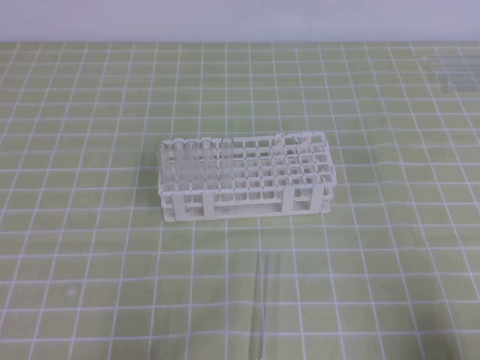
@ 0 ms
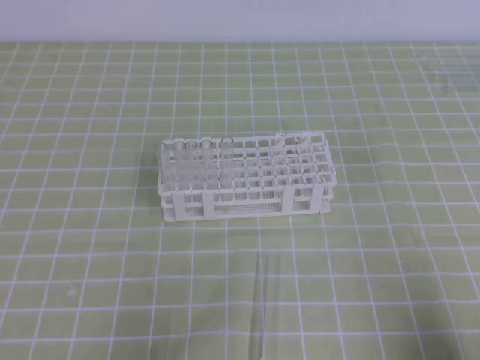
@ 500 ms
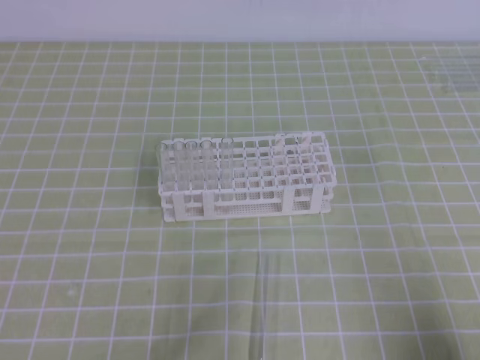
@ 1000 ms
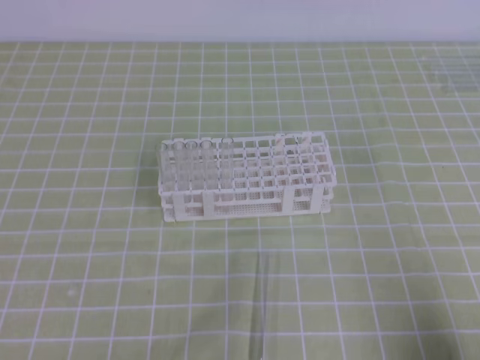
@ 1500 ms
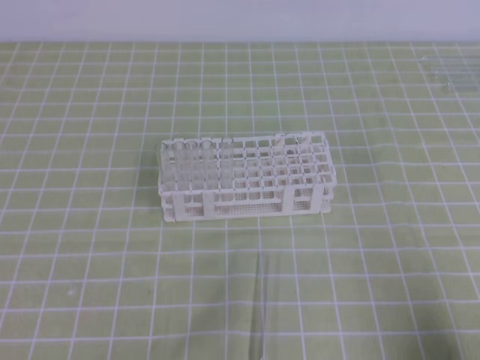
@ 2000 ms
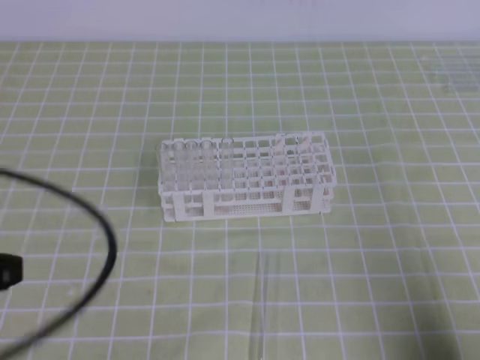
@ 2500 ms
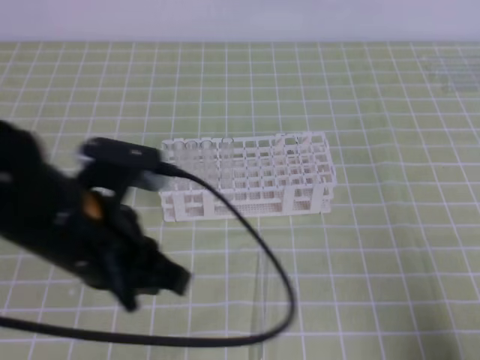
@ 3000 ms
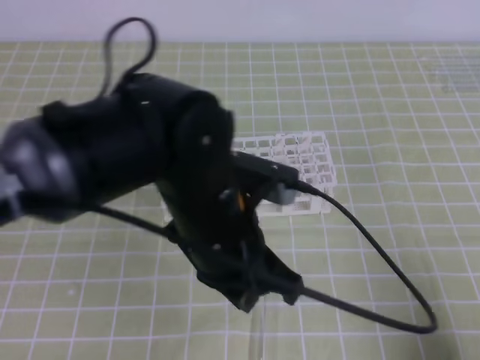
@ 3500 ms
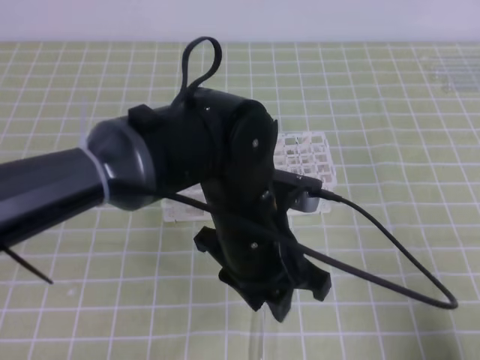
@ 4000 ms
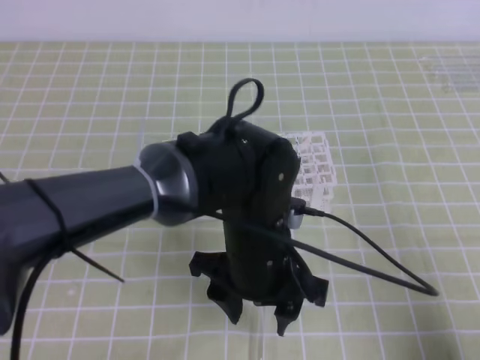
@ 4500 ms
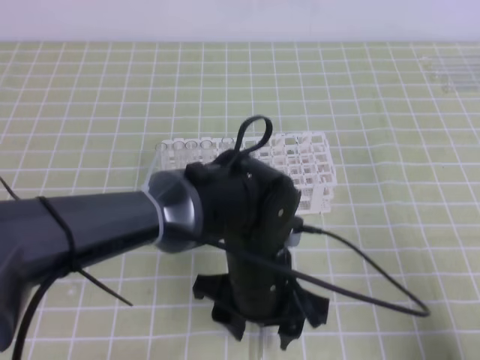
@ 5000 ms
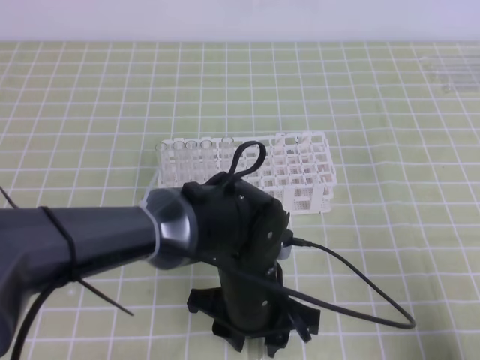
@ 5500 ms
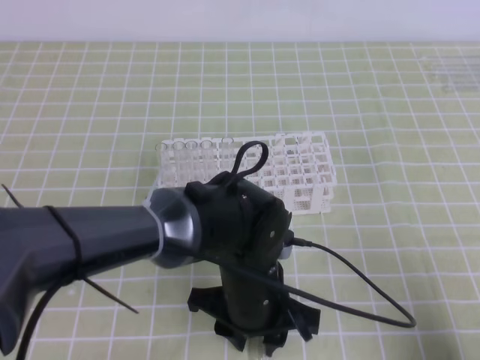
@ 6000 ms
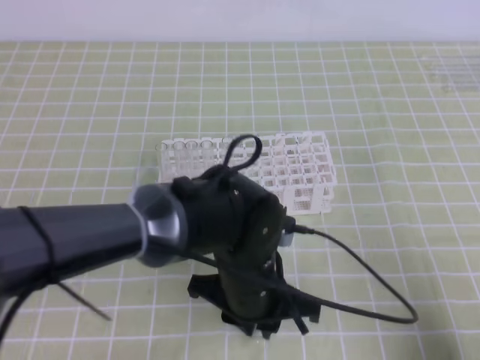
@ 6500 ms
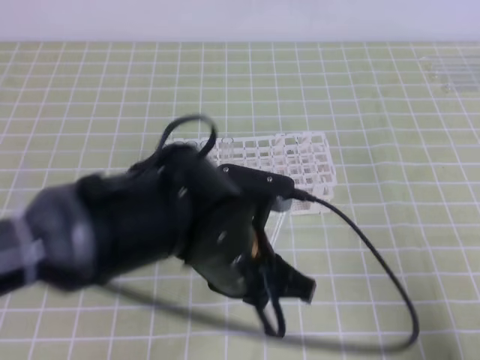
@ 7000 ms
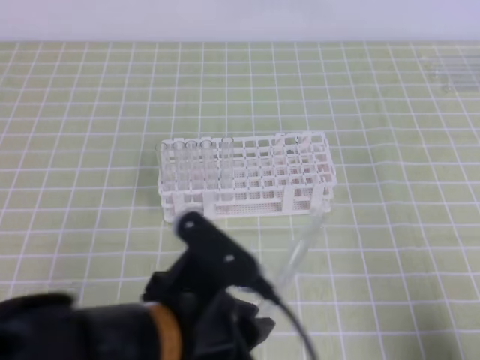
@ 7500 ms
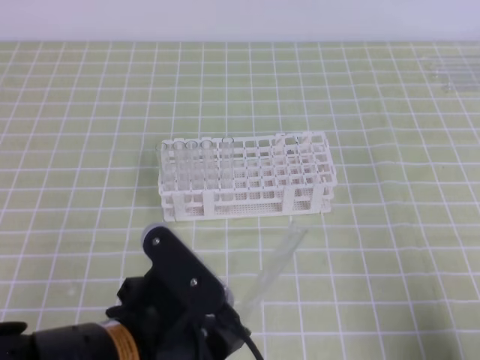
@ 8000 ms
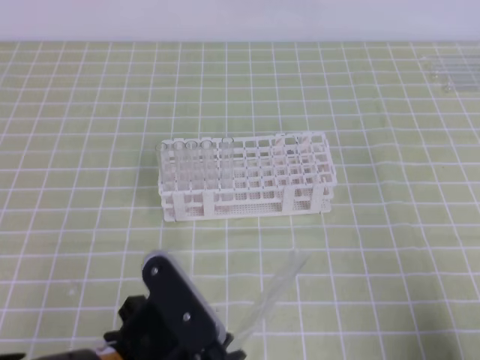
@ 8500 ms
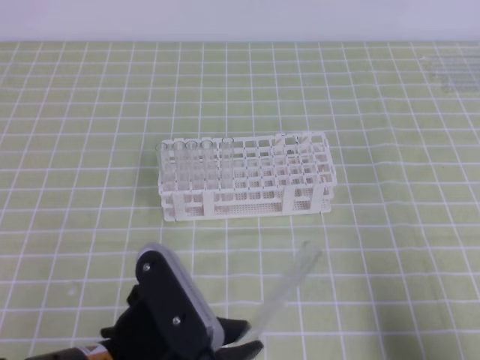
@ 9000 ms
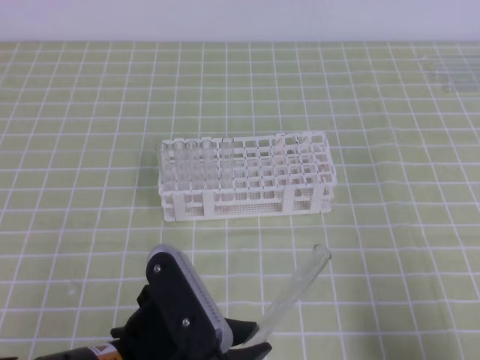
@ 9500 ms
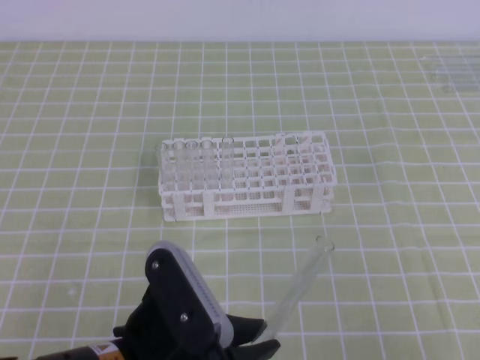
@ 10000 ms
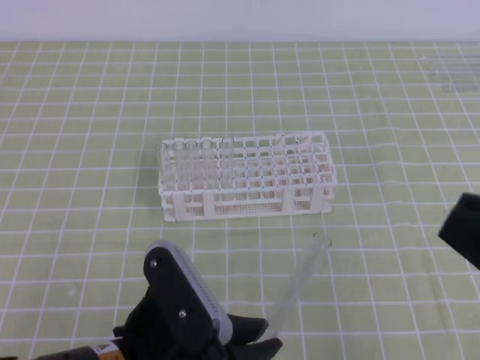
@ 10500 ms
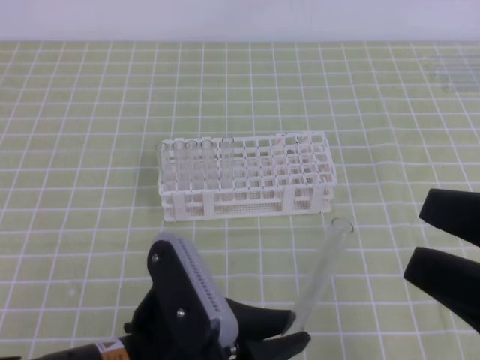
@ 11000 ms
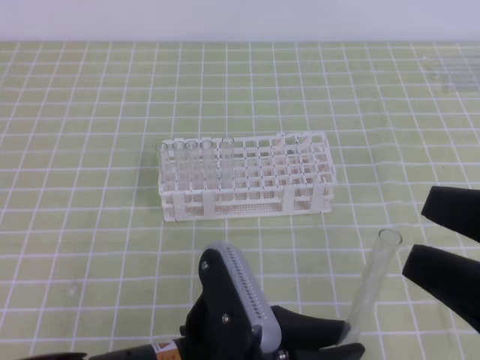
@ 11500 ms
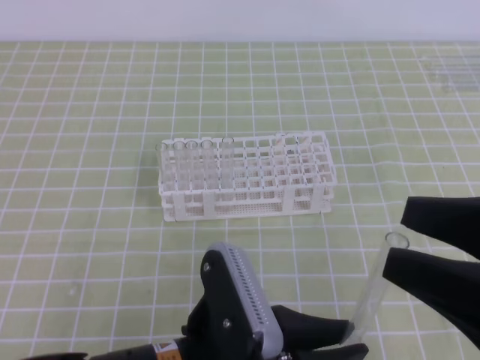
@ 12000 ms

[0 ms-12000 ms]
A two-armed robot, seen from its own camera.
2000 ms to 4000 ms: The left gripper travels to the right and forward by approximately 35 cm, and opens its fingers.
4000 ms to 6000 ms: The left gripper travels downward by roughly 10 cm, and opens, then closes once more.
6000 ms to 8000 ms: The left gripper travels to the left, backward and upward by about 15 cm.
8000 ms to 10000 ms: The right gripper travels upward by some 5 cm.
10000 ms to 12000 ms: The right gripper heads upward and forward, covering approximately 10 cm, and opens its fingers.

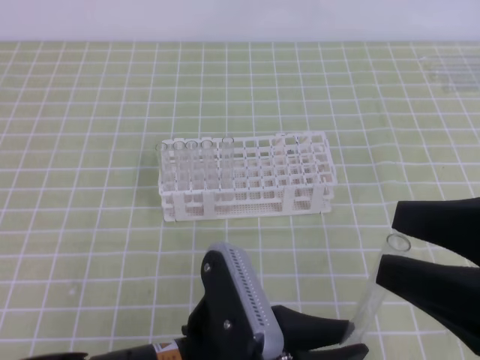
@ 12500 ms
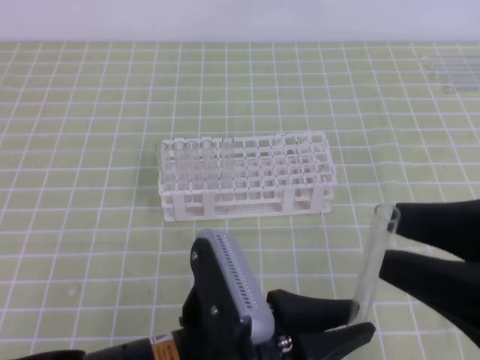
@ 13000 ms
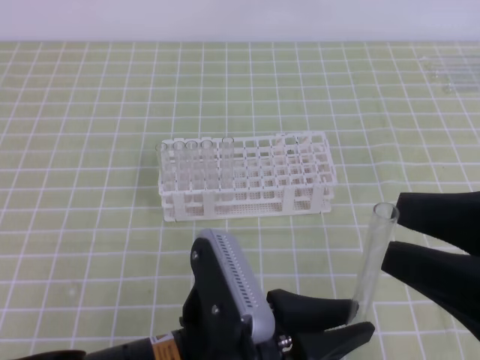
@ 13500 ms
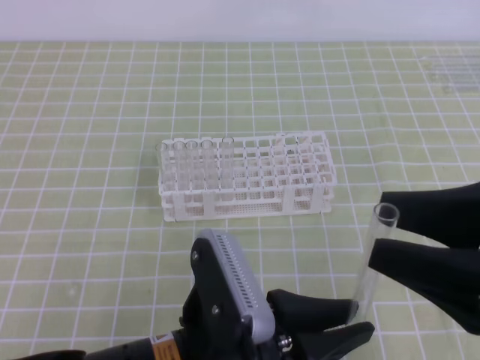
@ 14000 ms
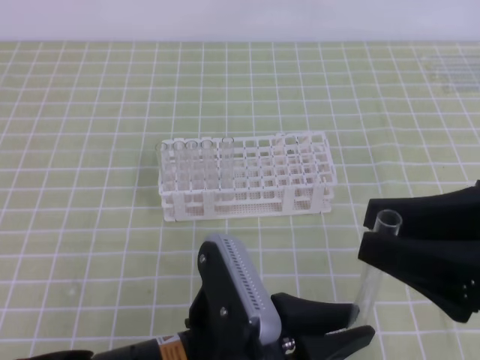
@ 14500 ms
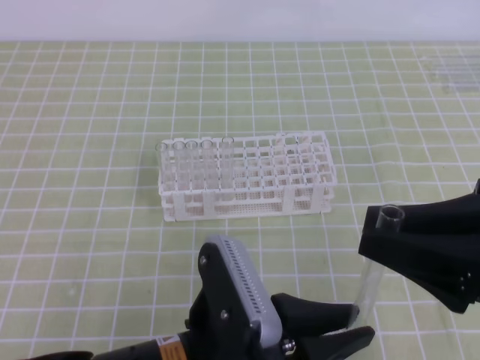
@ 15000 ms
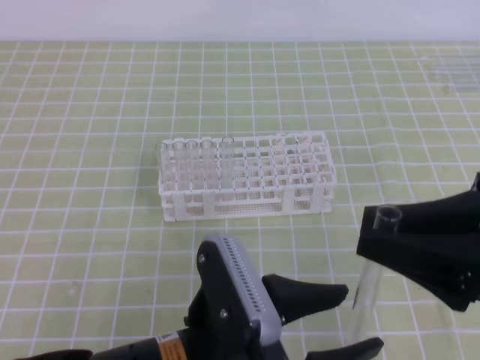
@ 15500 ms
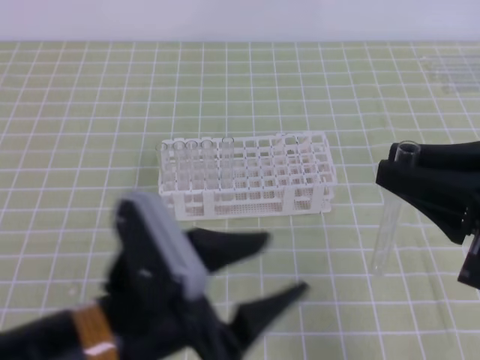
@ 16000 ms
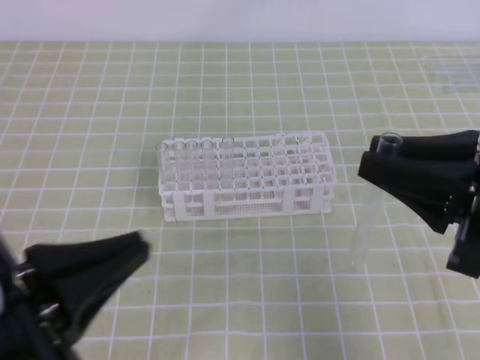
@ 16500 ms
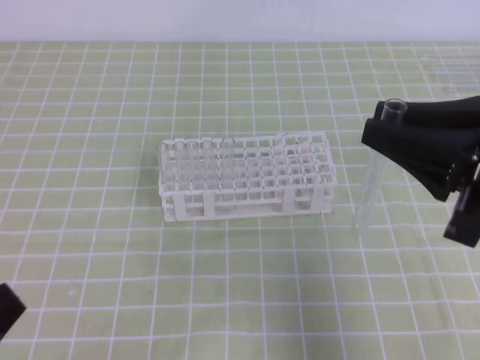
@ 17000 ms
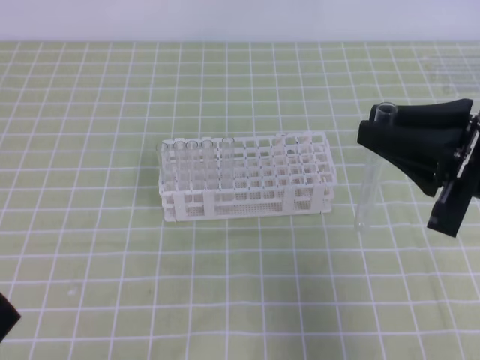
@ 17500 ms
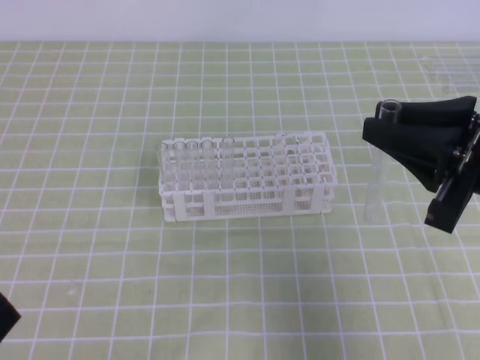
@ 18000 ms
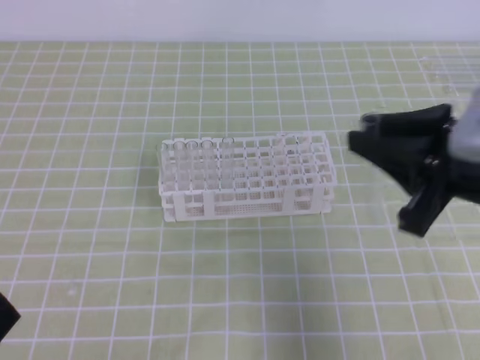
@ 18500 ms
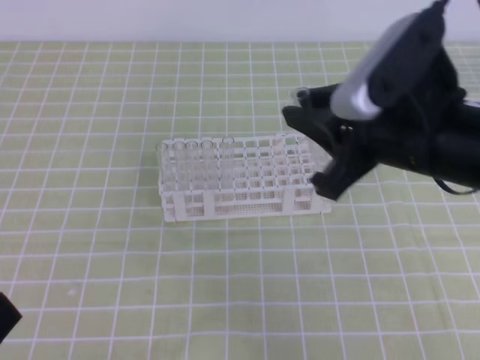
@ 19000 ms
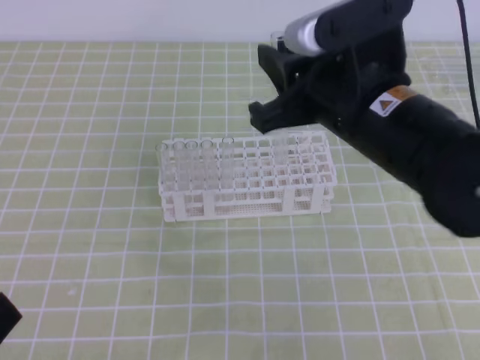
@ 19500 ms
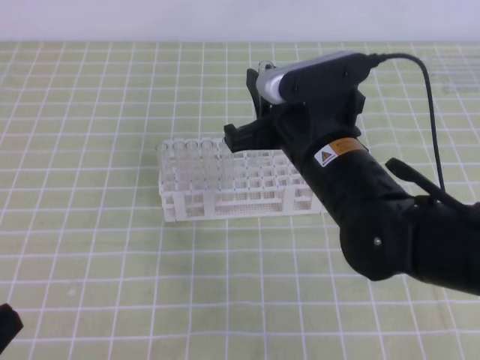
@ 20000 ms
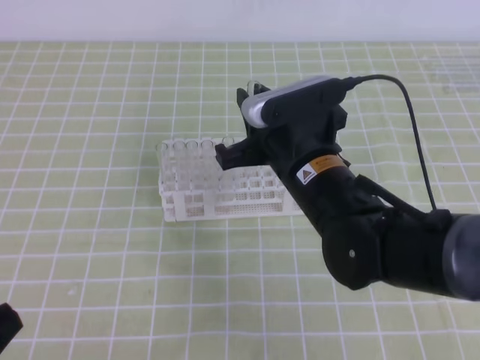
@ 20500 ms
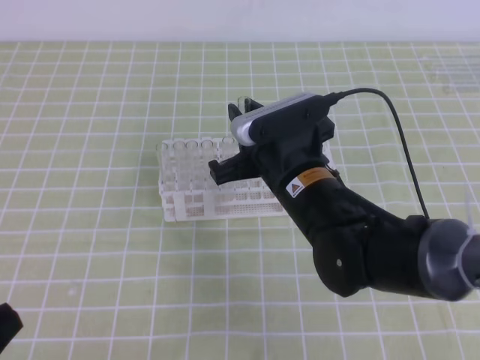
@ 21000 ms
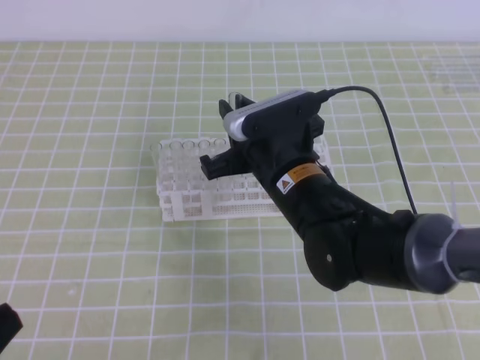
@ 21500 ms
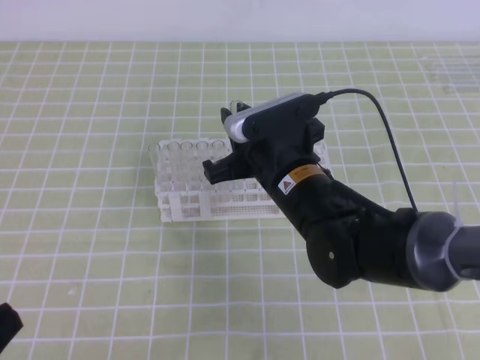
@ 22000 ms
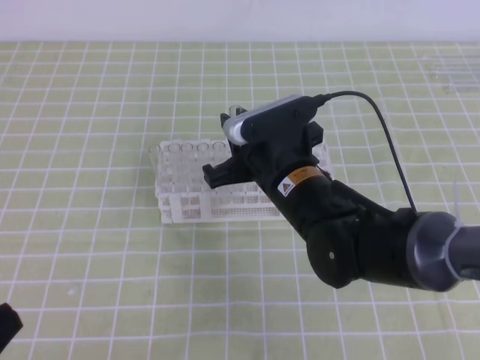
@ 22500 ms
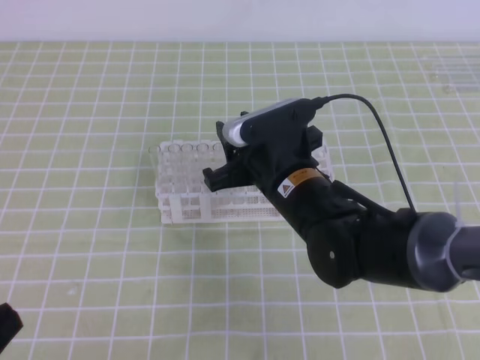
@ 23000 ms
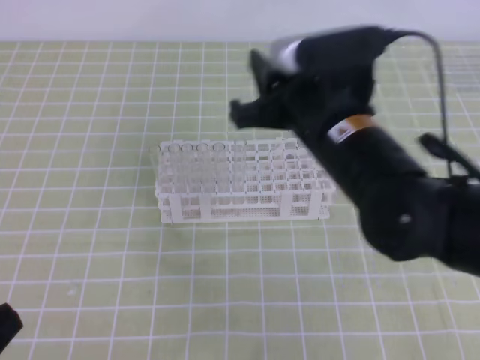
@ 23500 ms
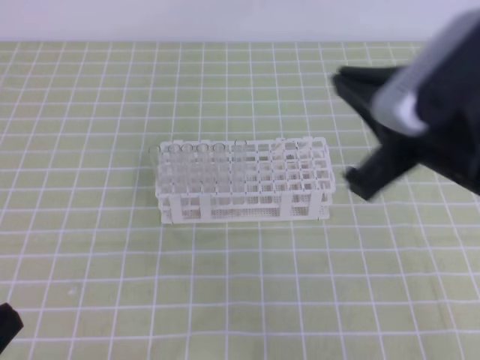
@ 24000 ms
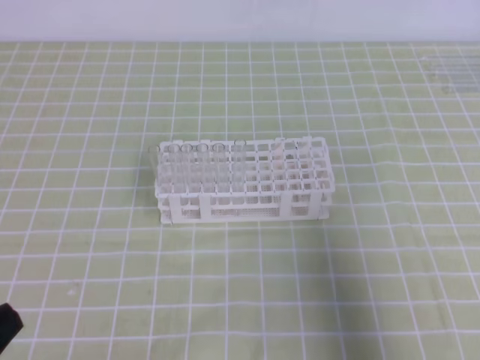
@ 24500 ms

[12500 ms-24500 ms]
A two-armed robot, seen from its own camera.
12500 ms to 14500 ms: The right gripper closes its fingers.
14500 ms to 16500 ms: The left gripper goes approximately 15 cm to the left and upward, and opens and closes again.
16500 ms to 18500 ms: The left gripper heads to the left, covering about 10 cm.
18500 ms to 20500 ms: The right gripper moves to the left, forward and downward, approximately 20 cm.
20500 ms to 22500 ms: The grippers stay close to where they were, moving slightly.
22500 ms to 24500 ms: The right gripper moves to the right and backward, roughly 30 cm.
